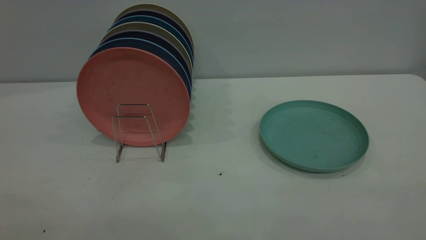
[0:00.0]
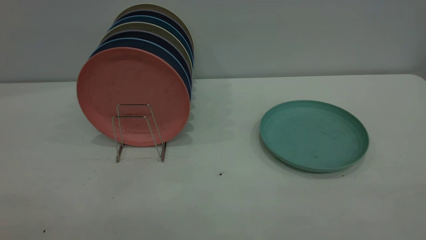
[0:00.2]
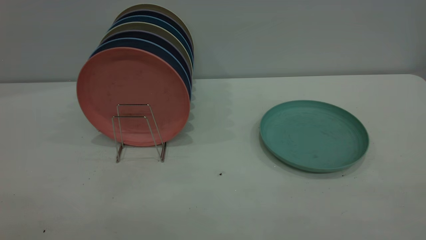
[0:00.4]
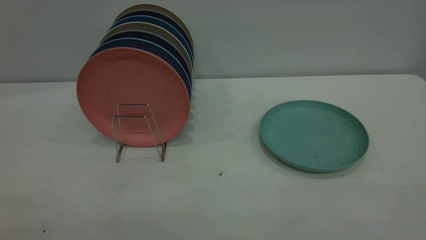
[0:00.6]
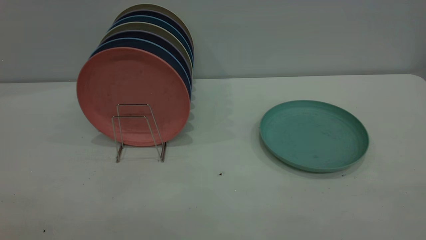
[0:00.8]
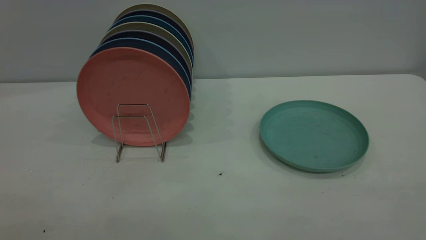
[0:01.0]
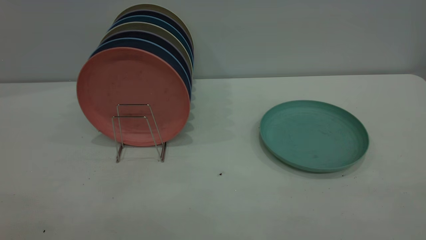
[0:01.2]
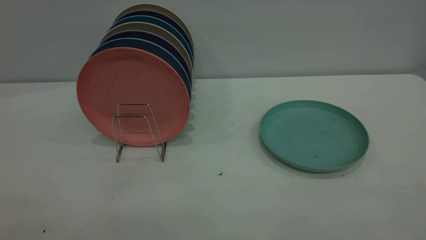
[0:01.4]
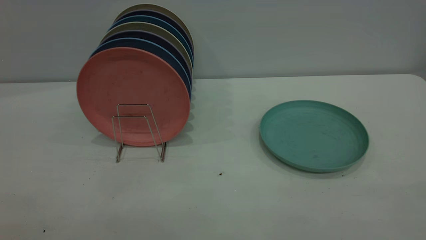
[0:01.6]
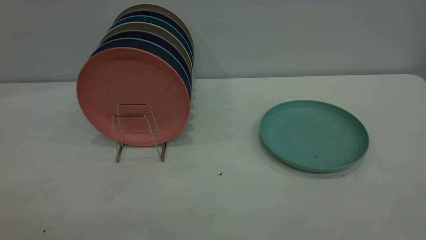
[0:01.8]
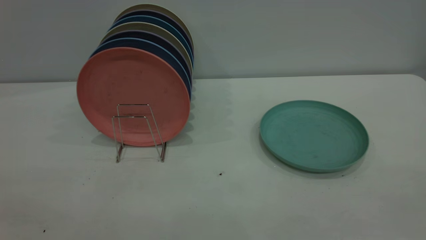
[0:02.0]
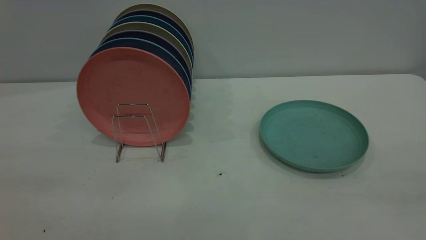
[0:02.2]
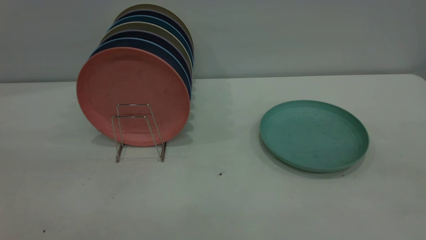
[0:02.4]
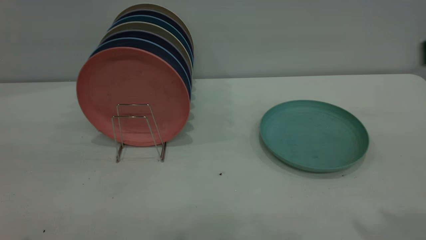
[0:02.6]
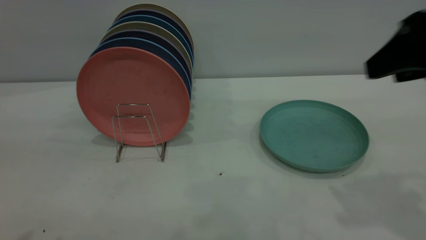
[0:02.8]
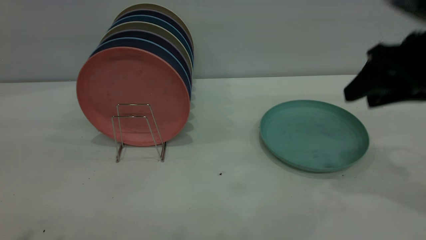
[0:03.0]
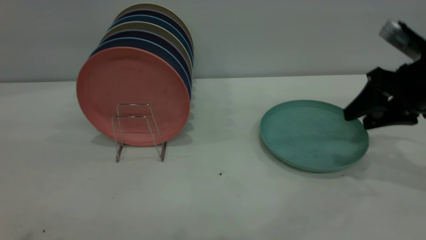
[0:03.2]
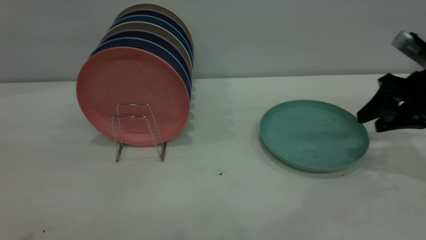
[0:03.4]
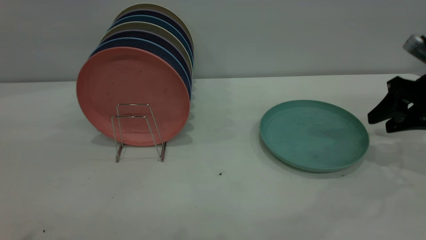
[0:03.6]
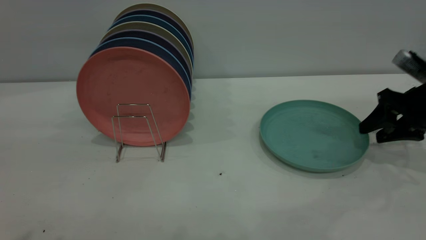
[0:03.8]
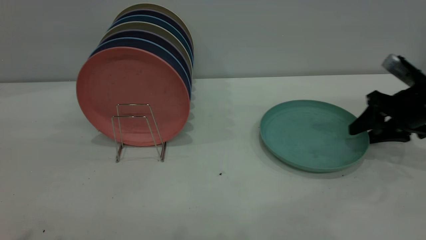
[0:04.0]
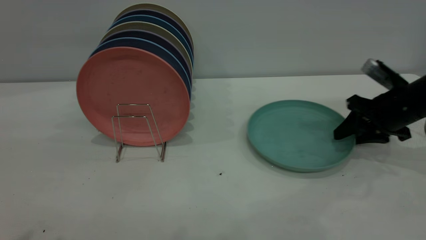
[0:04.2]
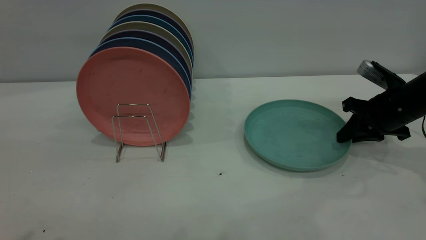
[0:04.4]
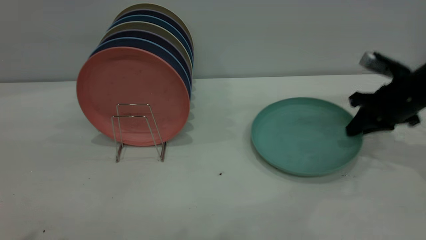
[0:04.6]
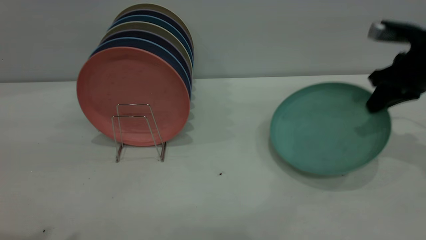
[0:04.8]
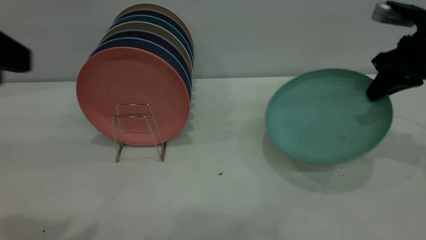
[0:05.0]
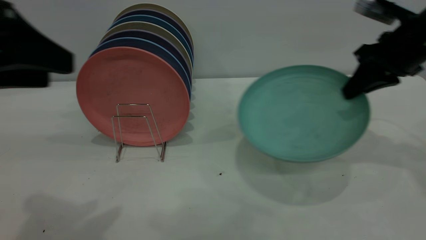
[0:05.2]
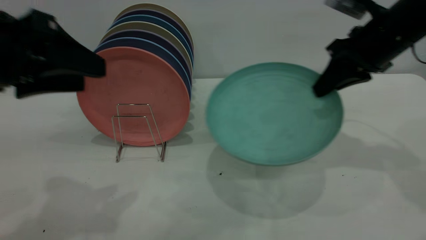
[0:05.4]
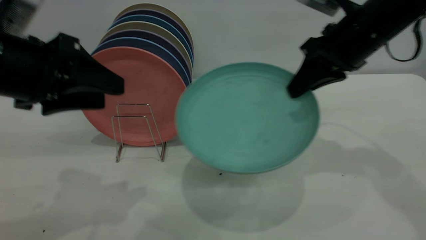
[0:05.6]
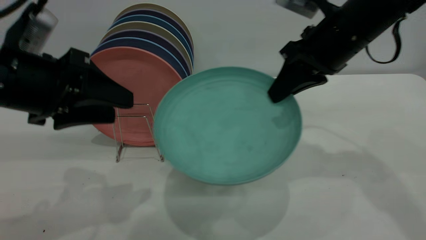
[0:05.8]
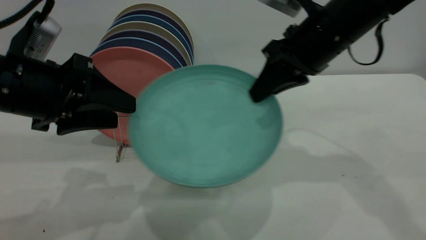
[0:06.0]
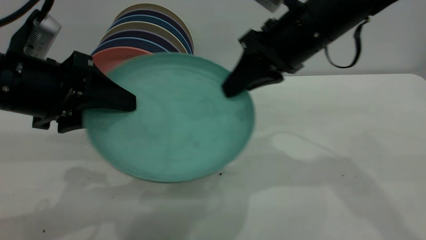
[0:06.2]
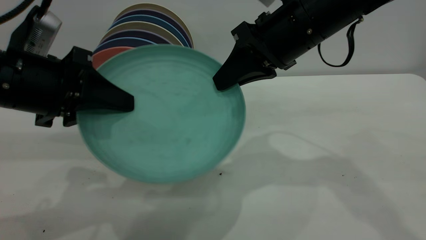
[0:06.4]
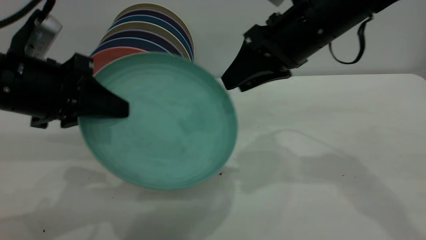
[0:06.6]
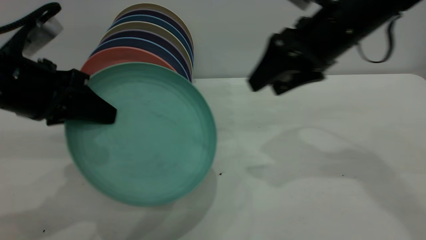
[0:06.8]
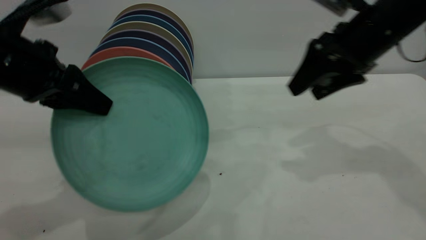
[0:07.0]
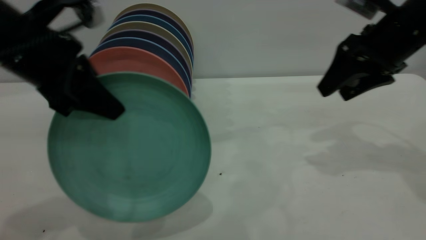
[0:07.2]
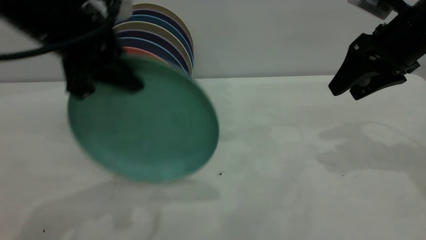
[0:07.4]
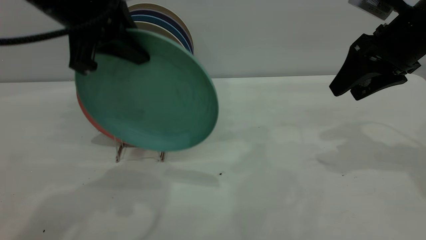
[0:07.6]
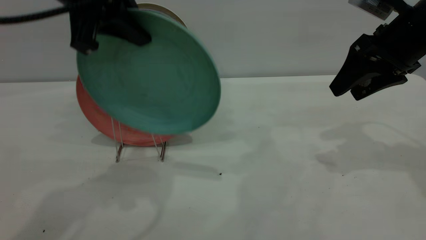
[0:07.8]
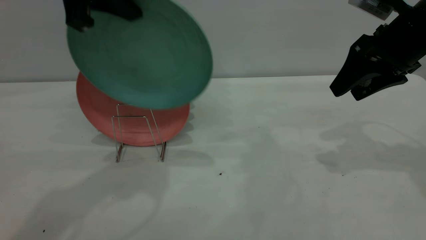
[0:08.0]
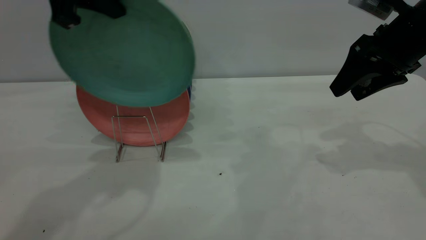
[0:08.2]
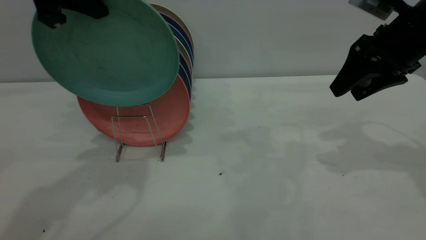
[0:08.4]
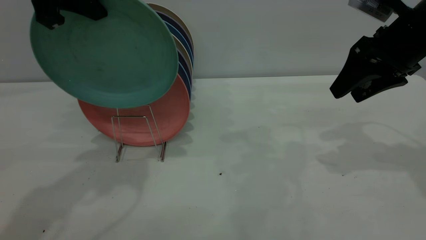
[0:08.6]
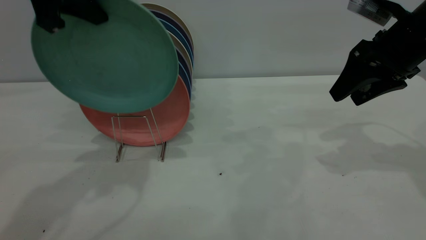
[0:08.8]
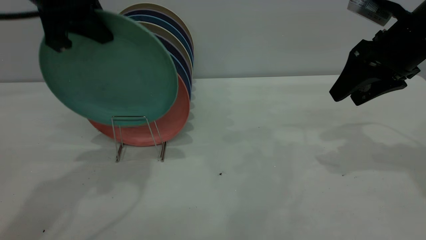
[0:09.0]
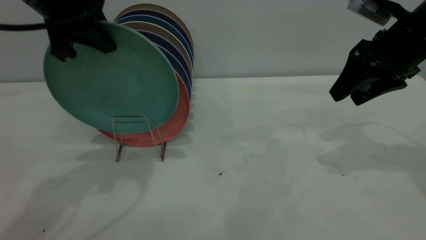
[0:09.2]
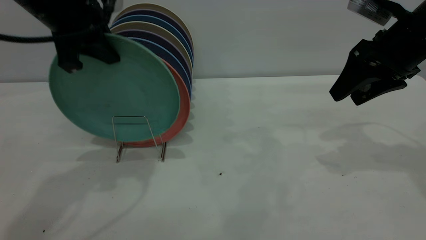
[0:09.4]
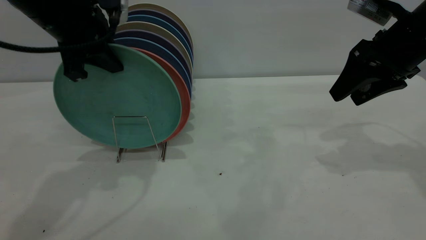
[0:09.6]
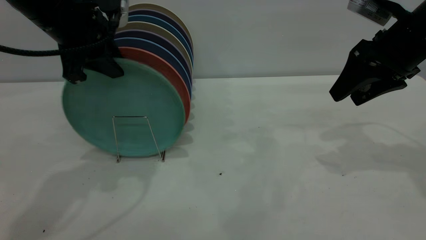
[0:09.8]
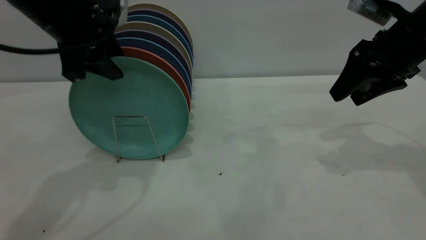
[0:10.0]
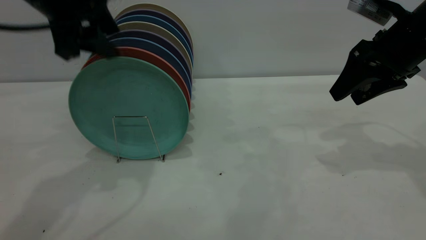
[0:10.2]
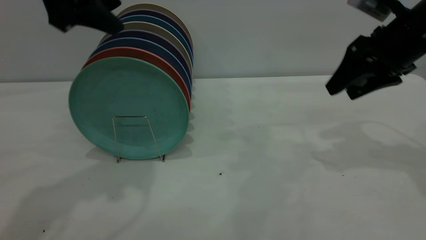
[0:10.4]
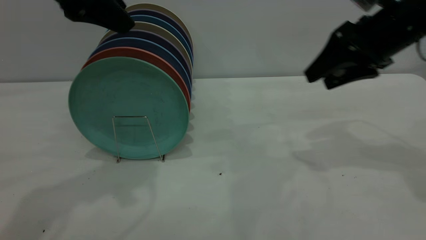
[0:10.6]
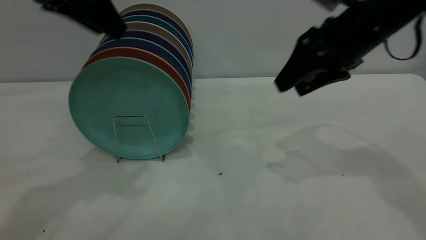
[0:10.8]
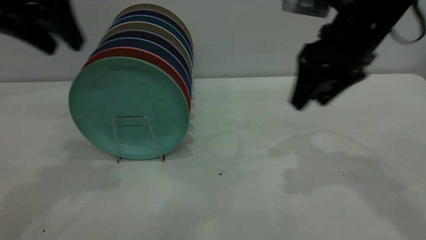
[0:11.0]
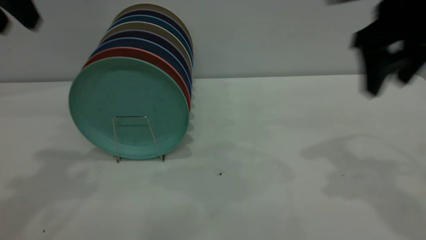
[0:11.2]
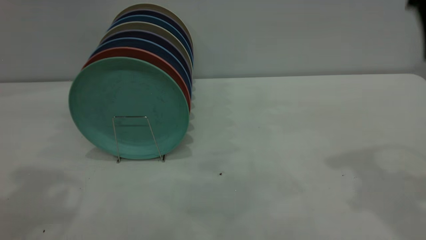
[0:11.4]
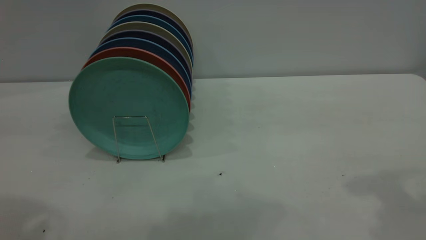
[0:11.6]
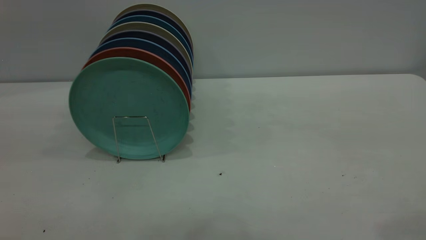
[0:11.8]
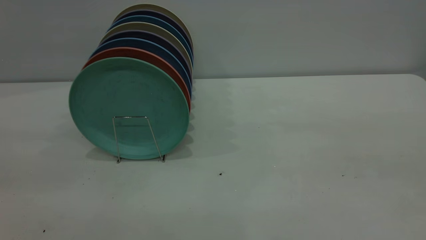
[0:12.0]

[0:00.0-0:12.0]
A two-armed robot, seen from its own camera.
Task of the whole recording: the right gripper grasp the green plate, the right gripper pass the green plate to the left gripper, and the left gripper place the green plate on the plate rack.
Step, 0:00.0 to 0:04.8: Pick up the plate with the right gripper.
Step, 0:05.0 to 0:06.6: Pass the plate from the right gripper to the left gripper.
Step, 0:06.8 to 0:10.2: Place the plate on the shelf.
0:00.0 to 0:01.6: Both grippers stay about where they are.
0:01.6 to 0:03.0: The right gripper goes some 35 cm forward.
0:03.0 to 0:04.4: The right gripper heads downward and forward, covering about 15 cm, and closes.
0:04.4 to 0:06.0: The left gripper heads downward and forward, covering approximately 20 cm; the right gripper moves to the left and upward, some 25 cm.
0:06.0 to 0:07.6: The right gripper heads to the right, covering some 15 cm, and opens. Meanwhile the left gripper shifts some 15 cm upward, to the right and forward, and closes its fingers.
0:07.6 to 0:09.0: The grippers stay close to where they were, moving slightly.
0:09.0 to 0:10.4: The left gripper opens its fingers.
0:10.4 to 0:12.0: The left gripper is displaced backward by about 25 cm, while the right gripper travels backward and upward by approximately 35 cm.
